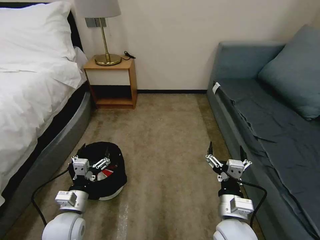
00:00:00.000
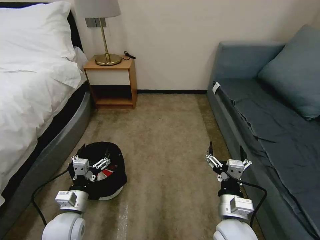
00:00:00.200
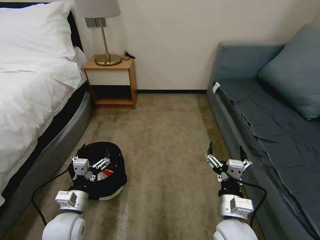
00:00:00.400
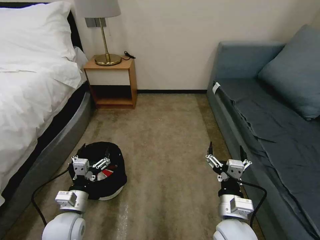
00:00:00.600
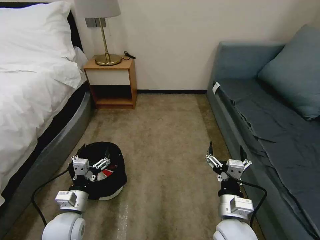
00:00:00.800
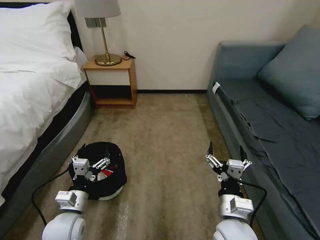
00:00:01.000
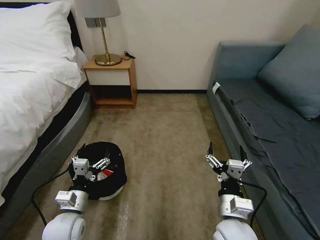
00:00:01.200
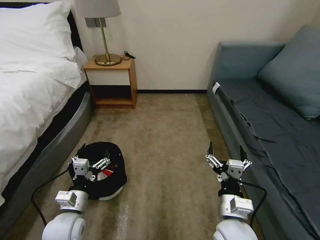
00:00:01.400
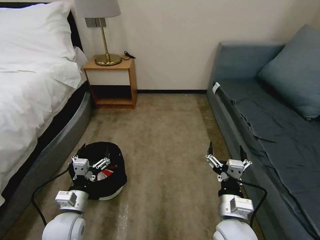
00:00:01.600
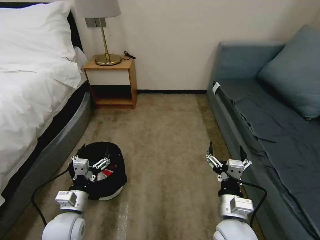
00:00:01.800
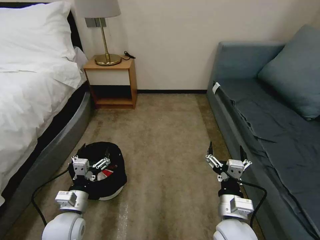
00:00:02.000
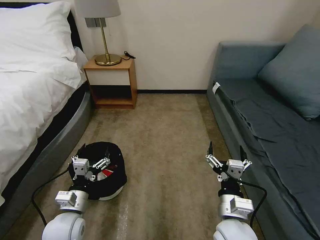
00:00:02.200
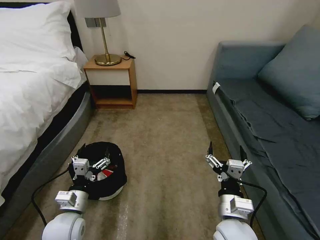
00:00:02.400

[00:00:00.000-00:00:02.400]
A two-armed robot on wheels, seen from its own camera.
Task of the whole recording: Pick up the trash bin, then pick up the garbage on the floor and place it into the trash bin.
00:00:00.000 to 00:00:02.400: Both grippers stay about where they are.

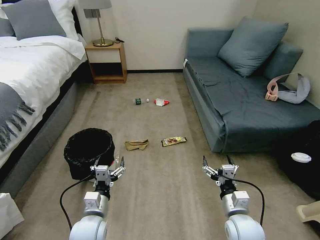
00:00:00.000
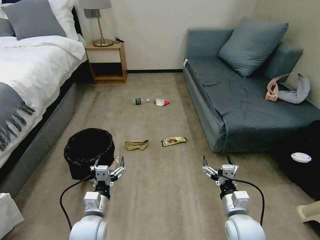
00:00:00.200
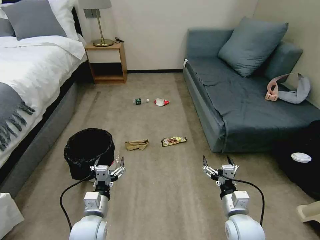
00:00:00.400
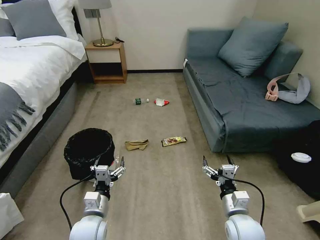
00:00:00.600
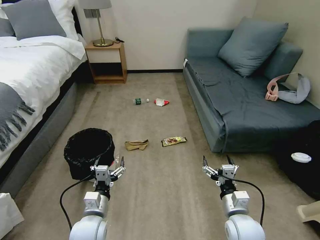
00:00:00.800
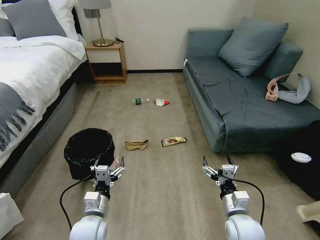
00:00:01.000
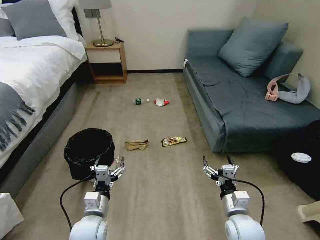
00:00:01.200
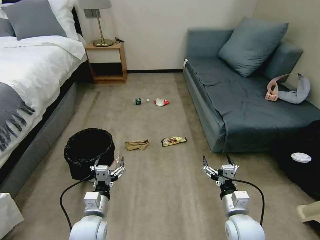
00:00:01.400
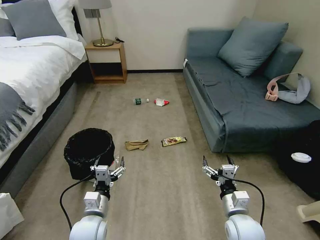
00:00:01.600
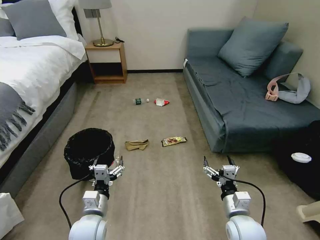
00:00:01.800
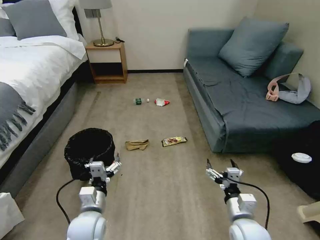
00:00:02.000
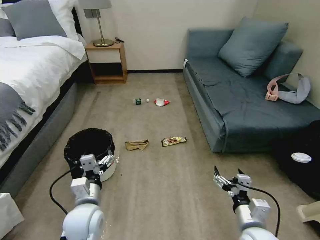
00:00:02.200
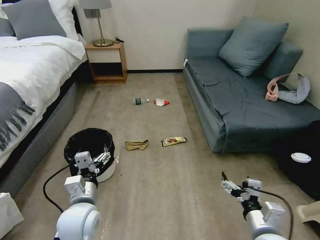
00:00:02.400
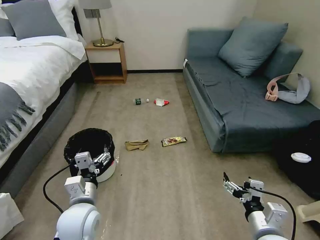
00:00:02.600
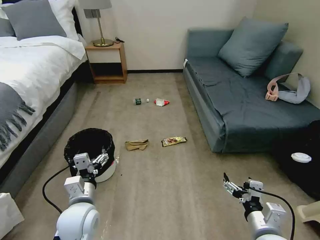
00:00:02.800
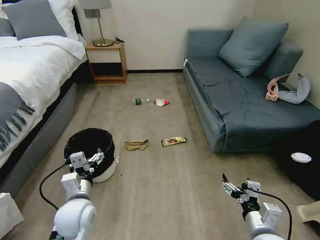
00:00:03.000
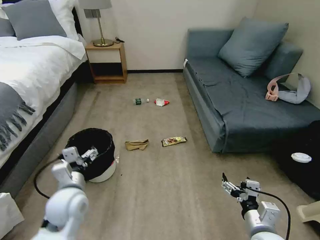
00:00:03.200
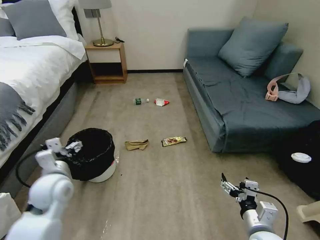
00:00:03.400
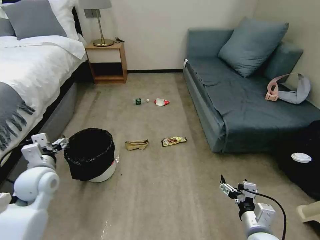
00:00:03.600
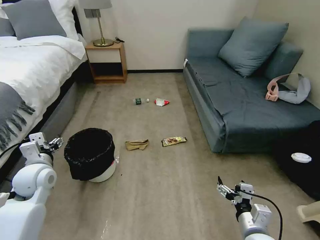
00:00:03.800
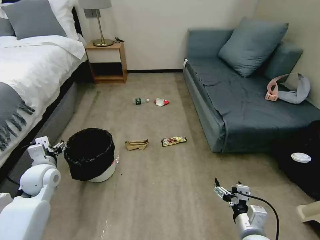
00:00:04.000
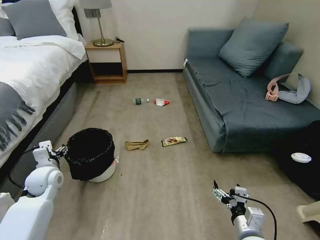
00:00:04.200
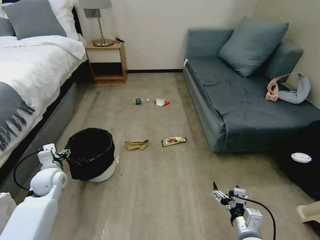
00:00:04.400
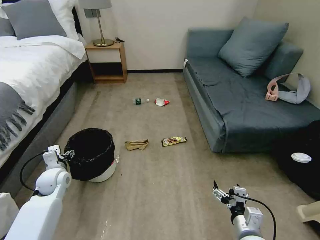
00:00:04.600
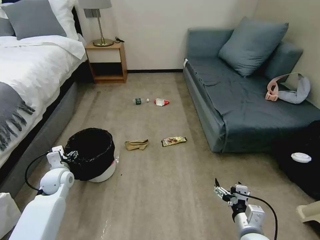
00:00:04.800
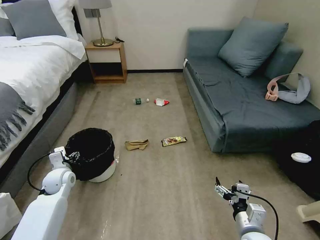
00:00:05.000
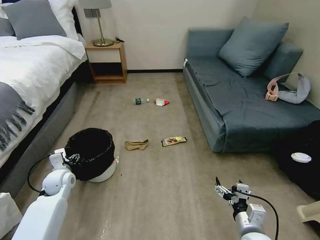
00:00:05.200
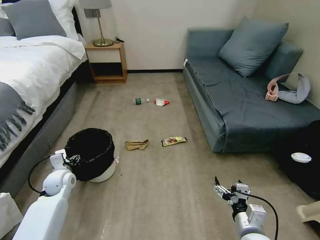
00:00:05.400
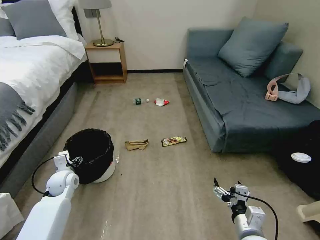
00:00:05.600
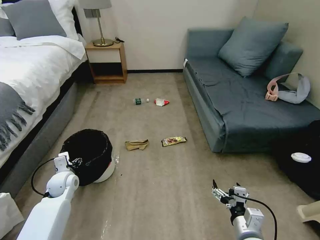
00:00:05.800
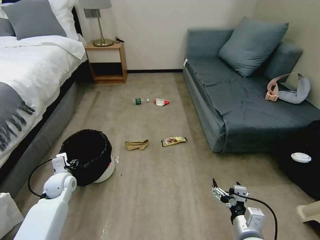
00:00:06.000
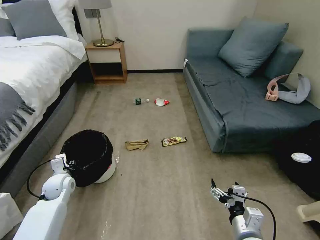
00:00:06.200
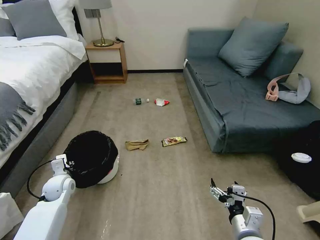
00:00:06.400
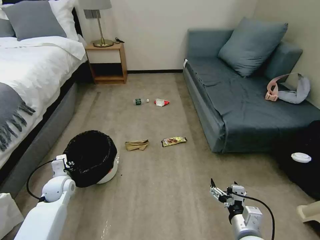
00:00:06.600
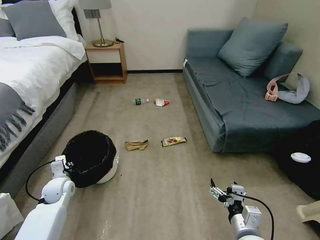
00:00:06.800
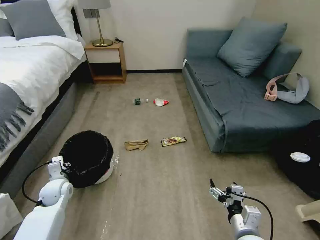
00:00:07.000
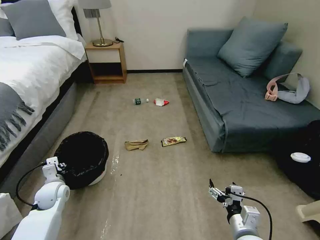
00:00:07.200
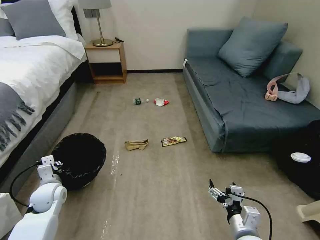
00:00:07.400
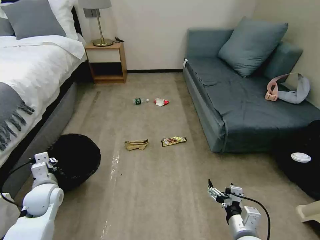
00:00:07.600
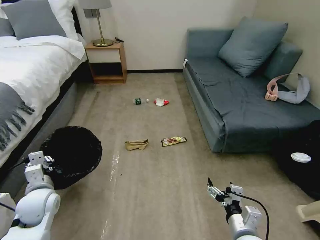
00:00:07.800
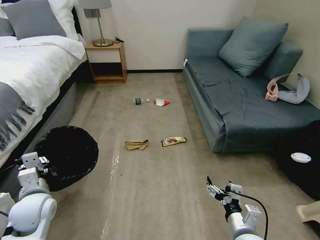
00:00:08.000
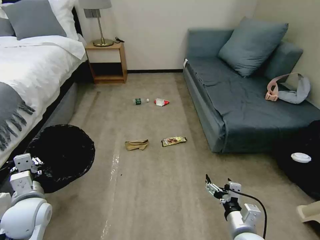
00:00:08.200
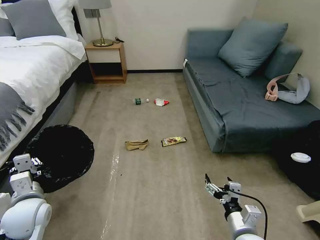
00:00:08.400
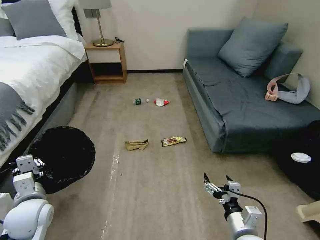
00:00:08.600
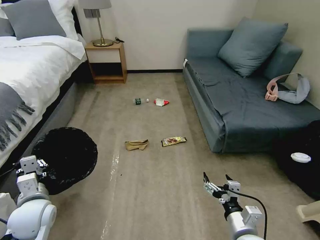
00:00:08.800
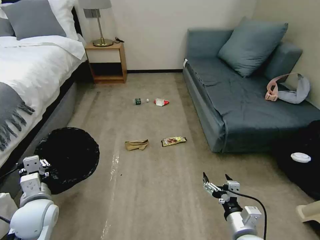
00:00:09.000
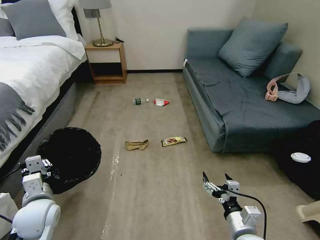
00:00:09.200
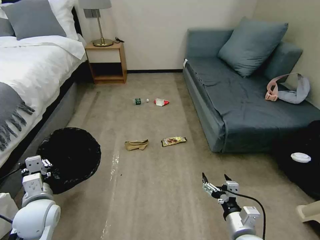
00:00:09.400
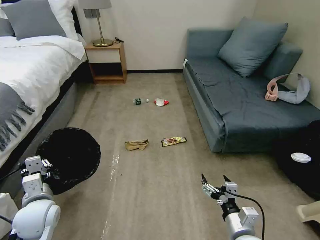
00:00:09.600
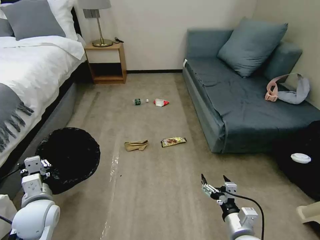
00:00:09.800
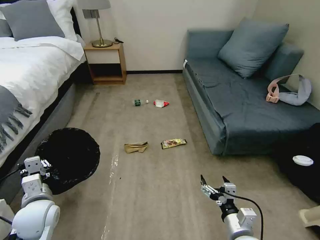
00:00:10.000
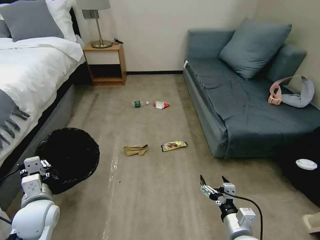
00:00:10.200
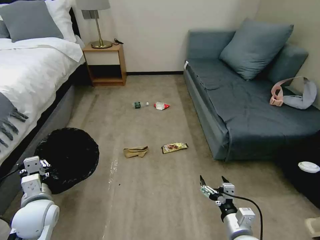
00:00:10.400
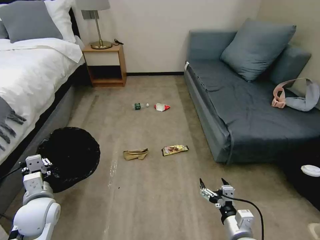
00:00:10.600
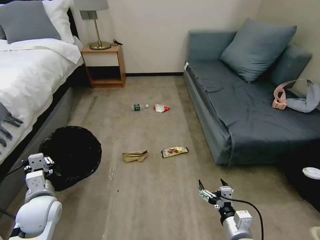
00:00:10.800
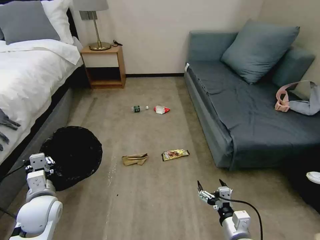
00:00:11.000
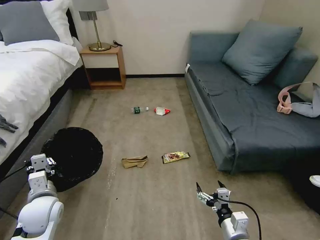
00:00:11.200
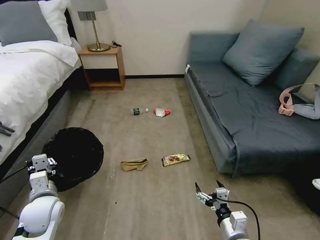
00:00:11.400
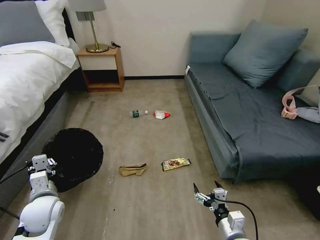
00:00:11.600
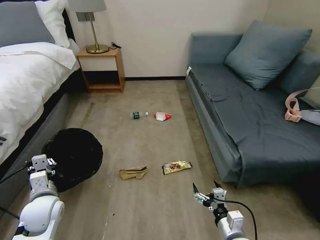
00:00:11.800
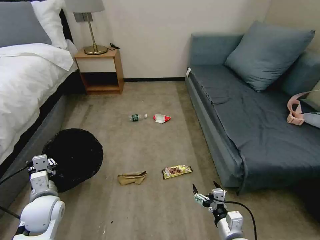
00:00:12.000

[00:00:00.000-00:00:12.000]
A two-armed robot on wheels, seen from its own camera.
Task of the whole recording: Pick up the trash bin, then pick up the garbage on the floor and place it into the trash bin.
00:00:01.600 to 00:00:03.000: The left gripper shifts approximately 5 cm upward, while the right gripper is displaced backward by roughly 5 cm.
00:00:03.000 to 00:00:04.400: The right gripper goes approximately 5 cm downward, while the left gripper heads to the left and forward, covering about 20 cm.
00:00:04.400 to 00:00:06.000: The grippers make only small movements.
00:00:06.000 to 00:00:07.600: The left gripper travels backward by about 5 cm, and closes up.
00:00:07.600 to 00:00:09.000: The left gripper heads backward, covering approximately 5 cm.
00:00:09.000 to 00:00:10.400: The grippers stay close to where they were, moving slightly.

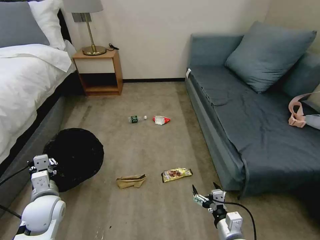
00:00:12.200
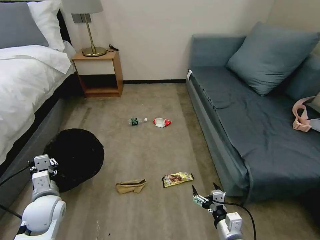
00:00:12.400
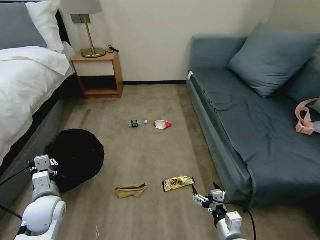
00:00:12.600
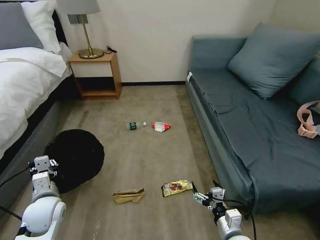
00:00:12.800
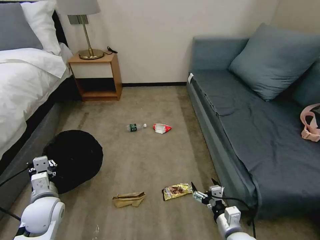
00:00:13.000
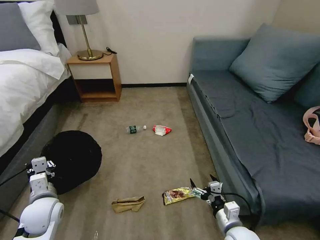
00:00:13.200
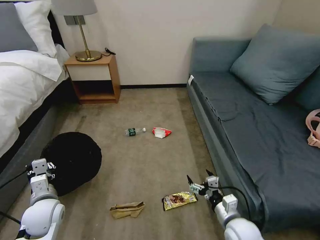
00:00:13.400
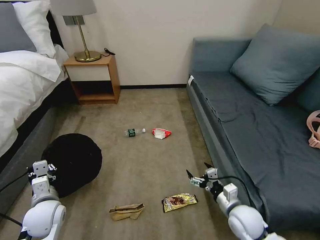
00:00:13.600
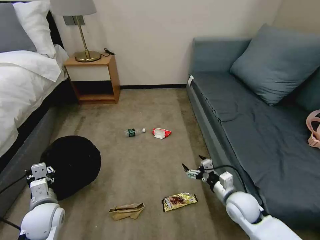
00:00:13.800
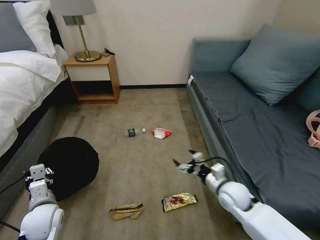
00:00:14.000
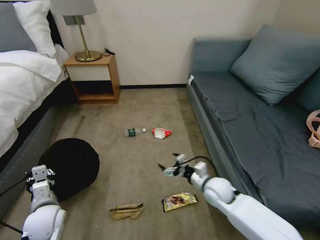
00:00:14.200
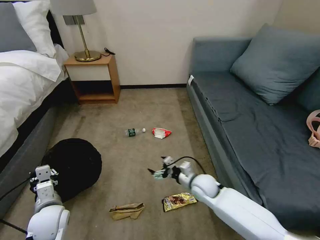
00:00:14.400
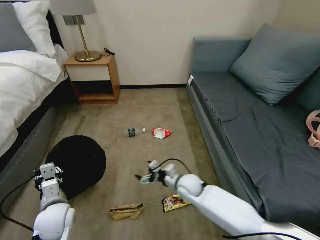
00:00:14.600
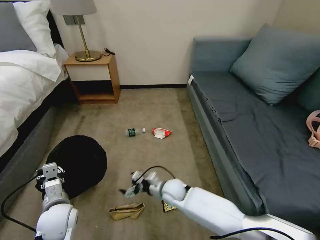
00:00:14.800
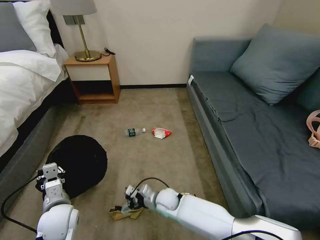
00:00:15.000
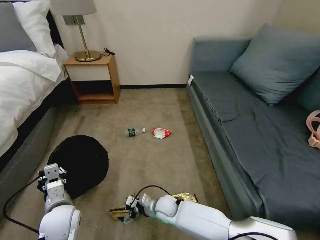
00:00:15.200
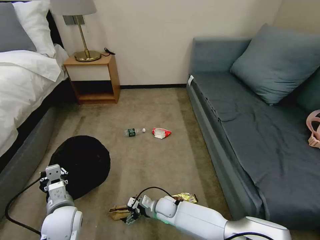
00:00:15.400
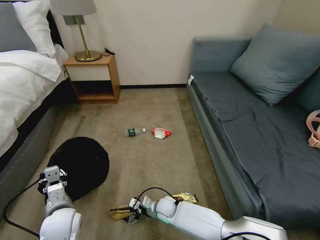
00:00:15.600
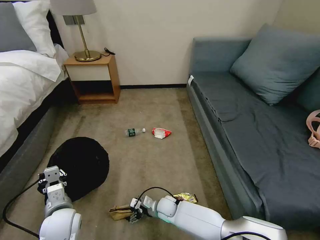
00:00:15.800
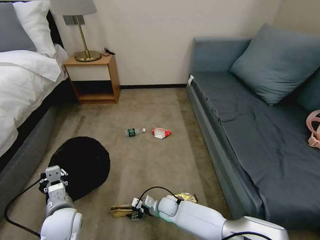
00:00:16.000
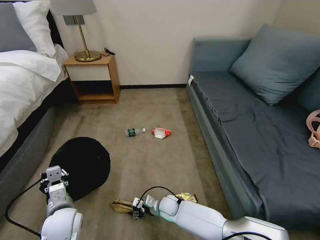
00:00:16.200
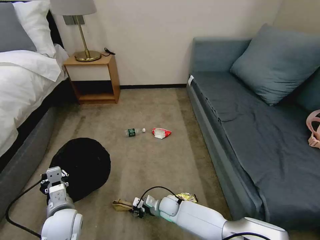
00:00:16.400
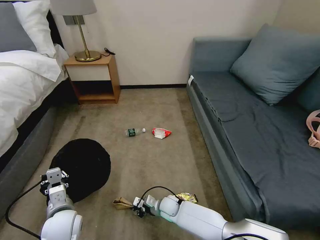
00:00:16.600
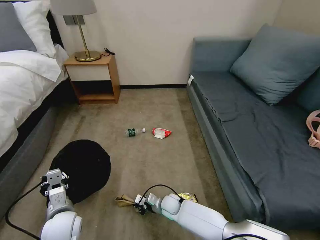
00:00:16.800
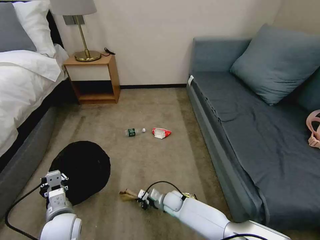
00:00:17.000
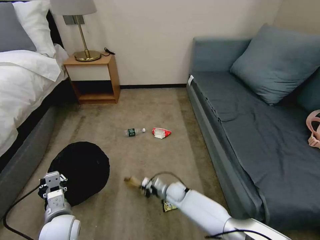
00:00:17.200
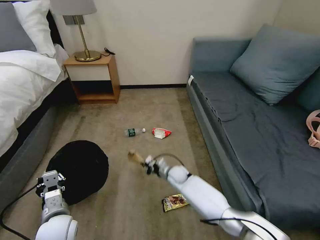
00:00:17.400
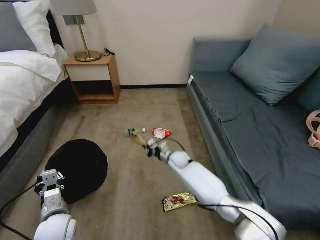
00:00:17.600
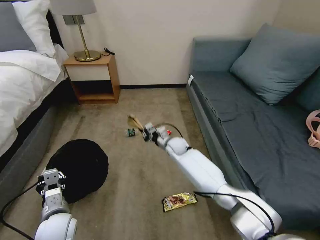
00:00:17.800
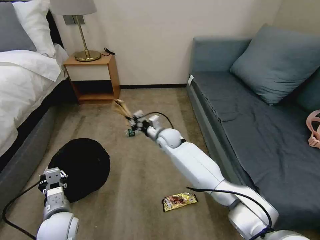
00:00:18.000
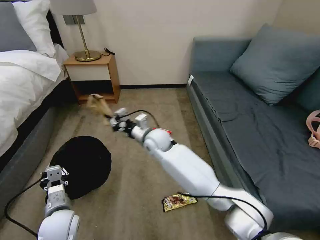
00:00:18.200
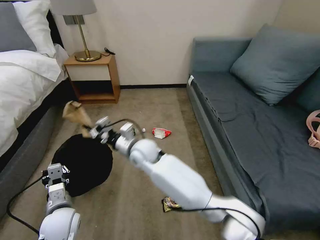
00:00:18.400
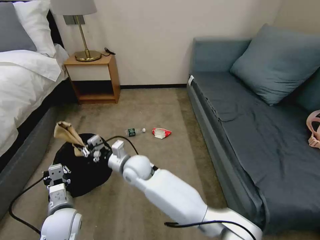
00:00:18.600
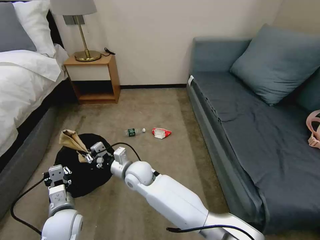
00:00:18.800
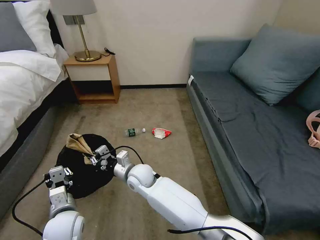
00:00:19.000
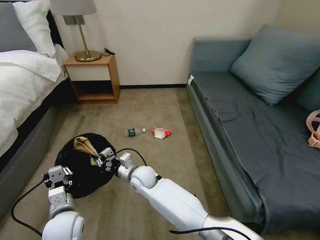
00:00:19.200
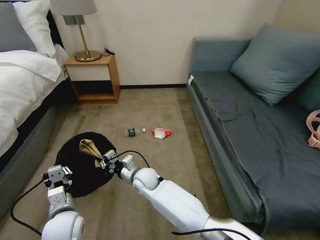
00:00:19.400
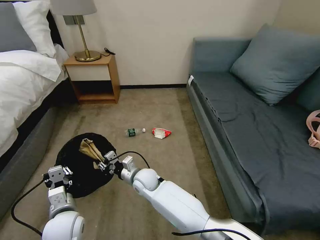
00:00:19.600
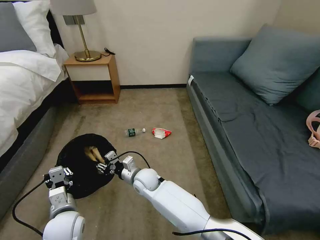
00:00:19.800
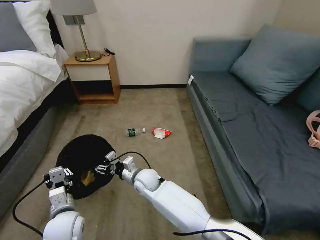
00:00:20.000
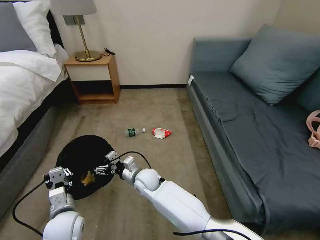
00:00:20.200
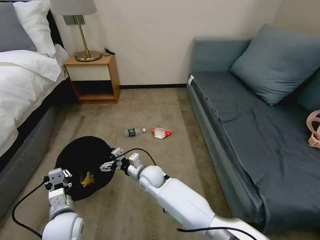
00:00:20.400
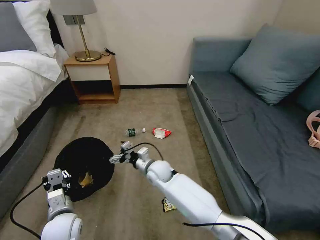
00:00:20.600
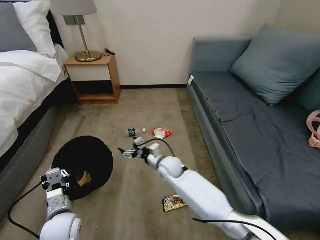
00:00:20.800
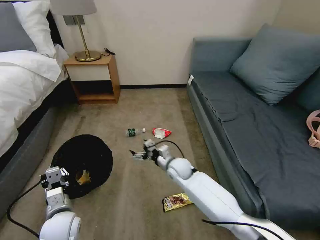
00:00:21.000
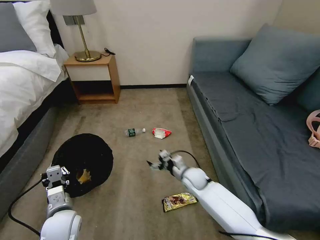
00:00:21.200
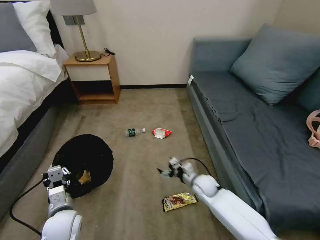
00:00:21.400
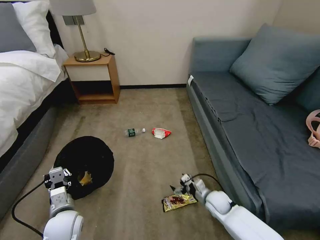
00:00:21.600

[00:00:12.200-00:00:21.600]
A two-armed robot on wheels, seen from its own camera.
Task of the whole recording: Pick up the trash bin, then pick up the garbage on the floor and place it into the trash bin.
00:00:12.200 to 00:00:13.800: The right gripper shifts approximately 10 cm forward.
00:00:13.800 to 00:00:15.400: The right gripper is displaced to the left and downward by about 30 cm. Meanwhile the left gripper travels to the right by some 5 cm.
00:00:15.400 to 00:00:17.000: The right gripper changes place by about 5 cm, and closes its fingers.
00:00:17.000 to 00:00:18.400: The right gripper is displaced upward and to the left by roughly 30 cm.
00:00:18.400 to 00:00:20.000: The right gripper is displaced downward by approximately 15 cm, and opens its fingers.
00:00:20.000 to 00:00:21.600: The right gripper heads to the right, covering approximately 30 cm.
